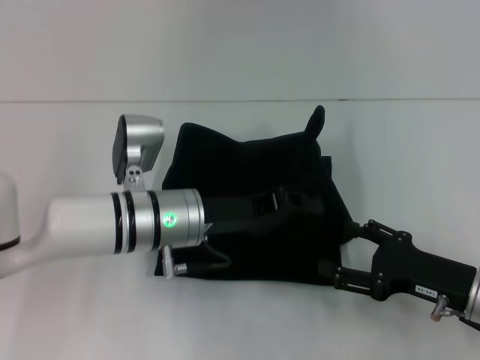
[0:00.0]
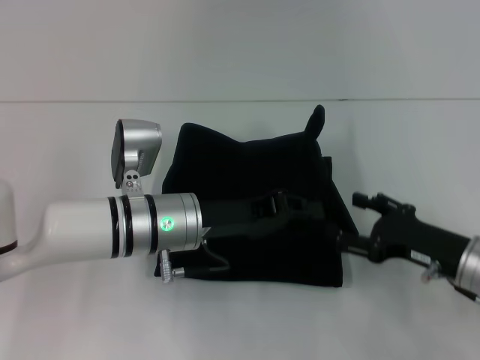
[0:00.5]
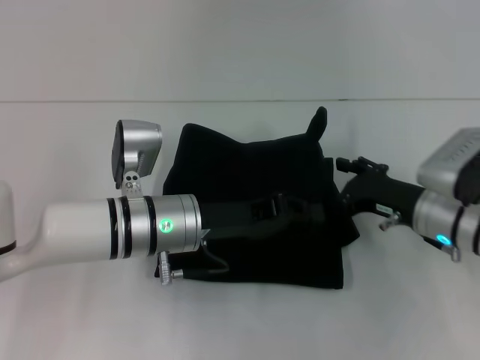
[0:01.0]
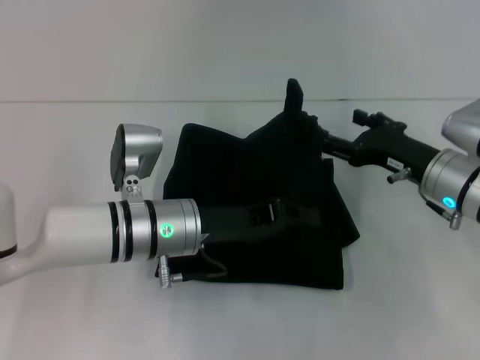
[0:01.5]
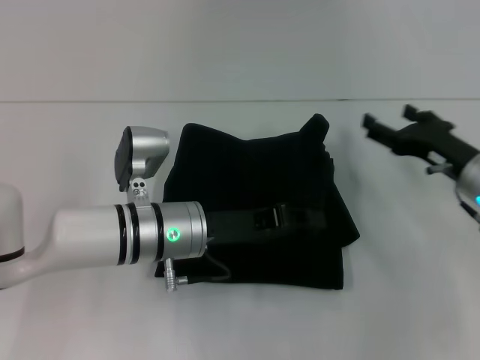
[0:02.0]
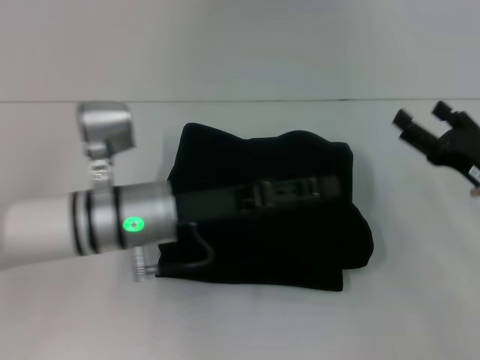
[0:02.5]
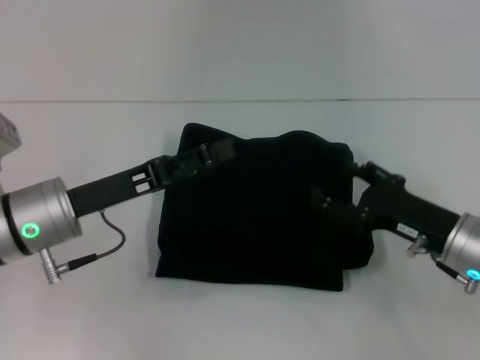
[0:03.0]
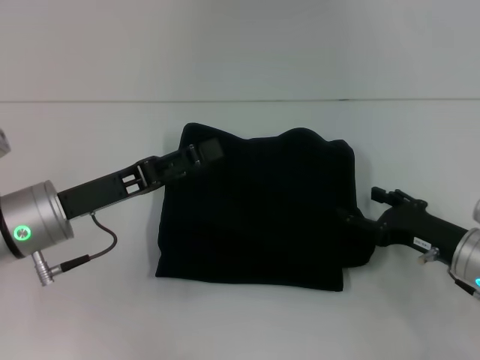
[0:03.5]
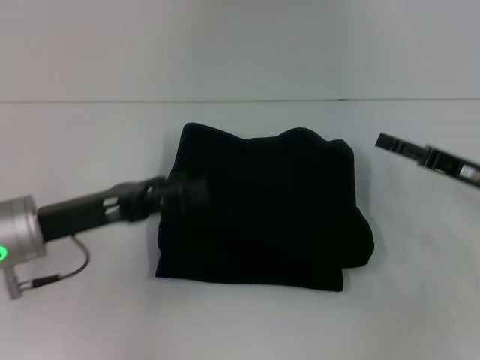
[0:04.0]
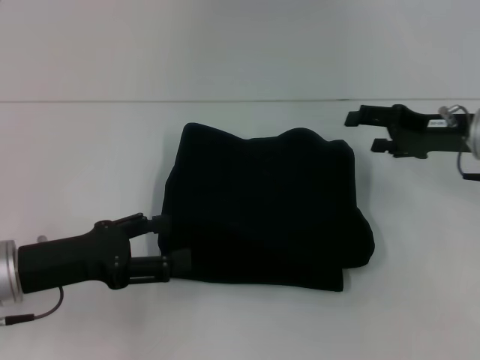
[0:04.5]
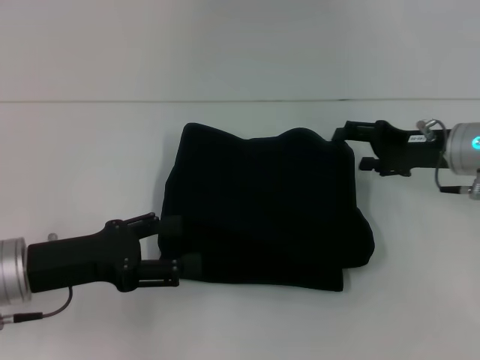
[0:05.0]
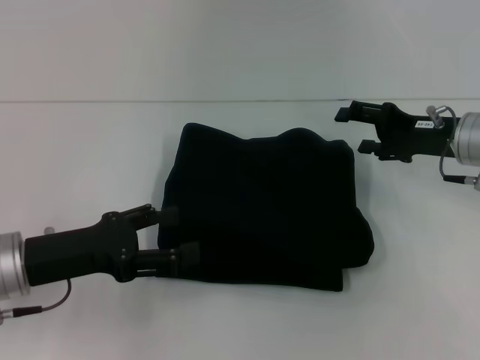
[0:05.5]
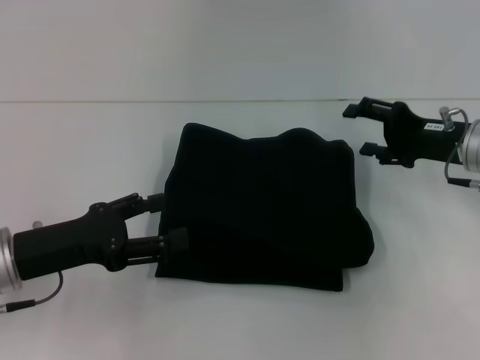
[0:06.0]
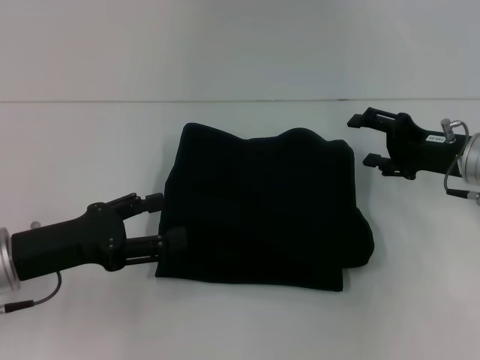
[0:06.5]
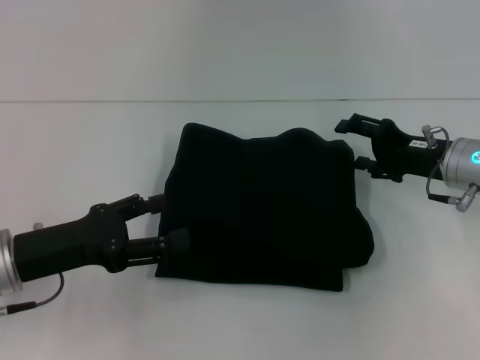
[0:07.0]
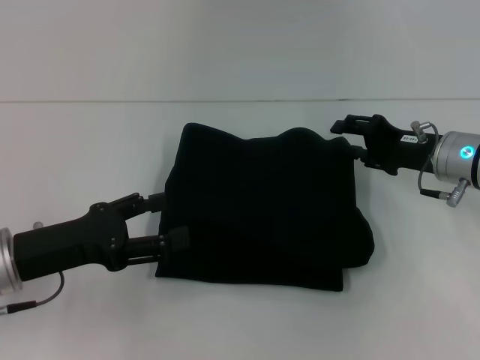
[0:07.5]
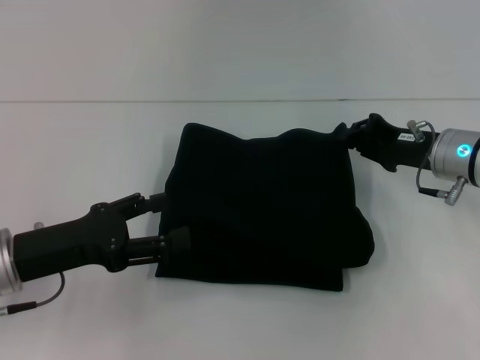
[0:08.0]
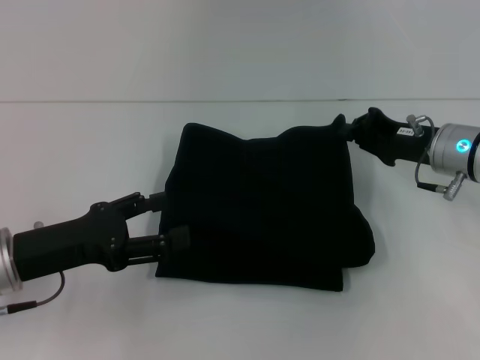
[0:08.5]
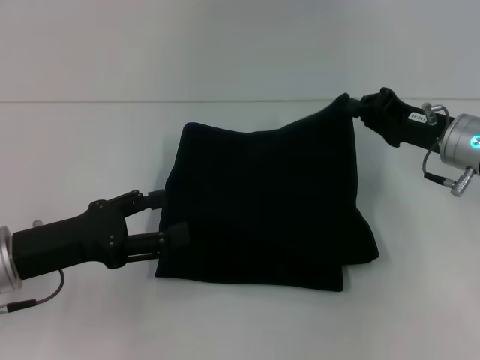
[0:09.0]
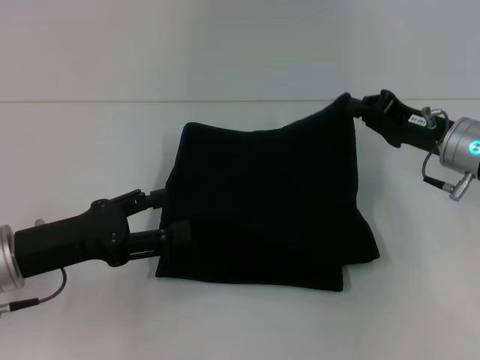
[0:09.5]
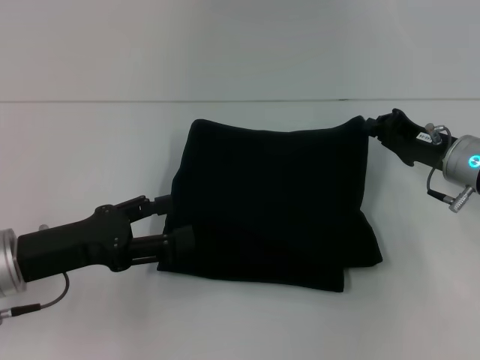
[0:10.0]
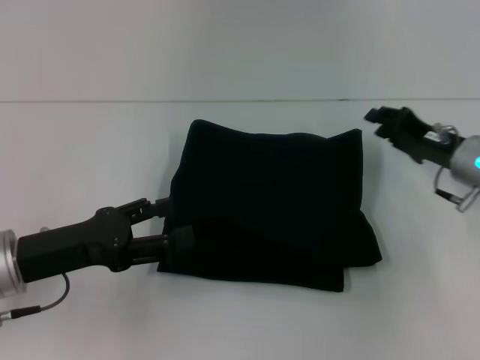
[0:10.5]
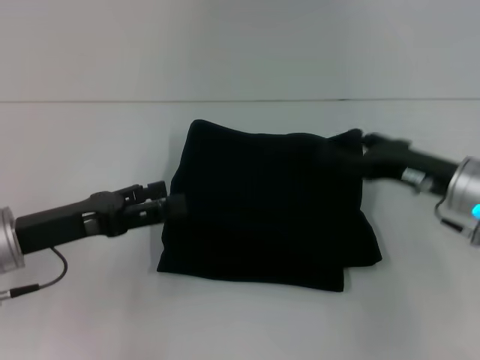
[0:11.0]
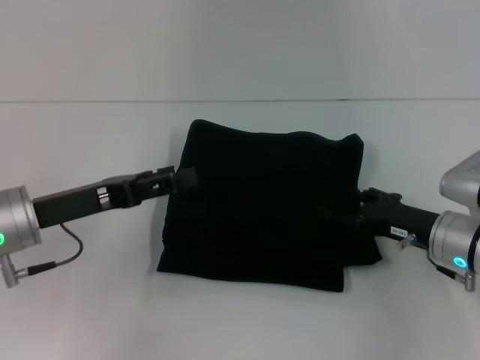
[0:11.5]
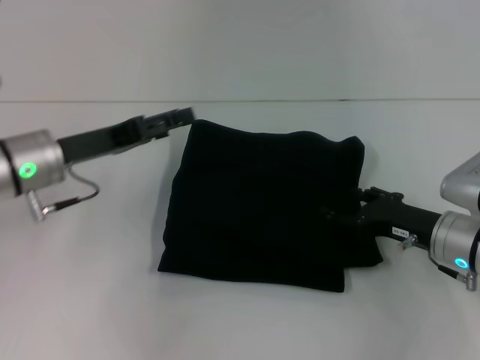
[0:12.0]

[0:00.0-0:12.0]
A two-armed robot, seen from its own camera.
Step, 0:00.0 to 0:02.5: Fold the clothes with your left hand.
0:00.0 to 0:02.0: The right gripper heads forward, covering approximately 10 cm.
0:02.0 to 0:04.0: The left gripper moves to the left, some 15 cm, and opens its fingers.
0:04.0 to 0:06.0: The right gripper shifts by roughly 5 cm.
0:06.0 to 0:08.0: The right gripper closes up.
0:08.0 to 0:10.0: The right gripper closes.
0:10.0 to 0:12.0: The left gripper is displaced forward by about 10 cm. Meanwhile the right gripper shifts approximately 5 cm backward, and opens.

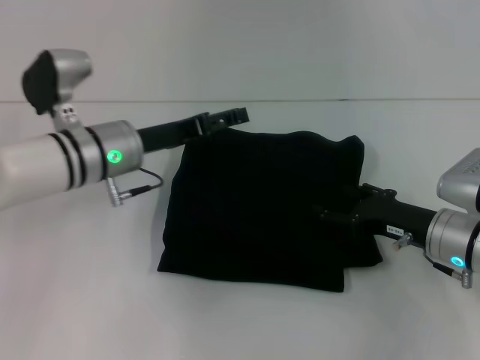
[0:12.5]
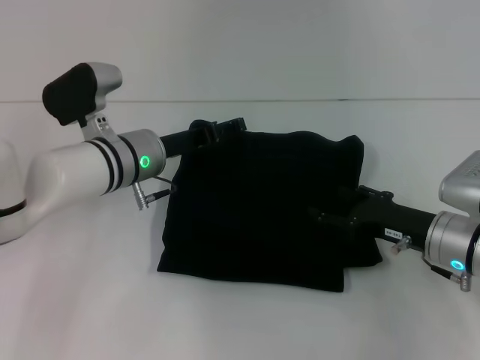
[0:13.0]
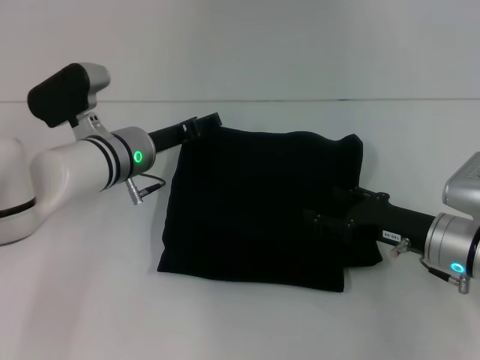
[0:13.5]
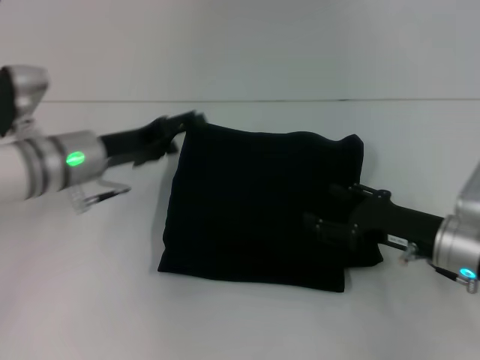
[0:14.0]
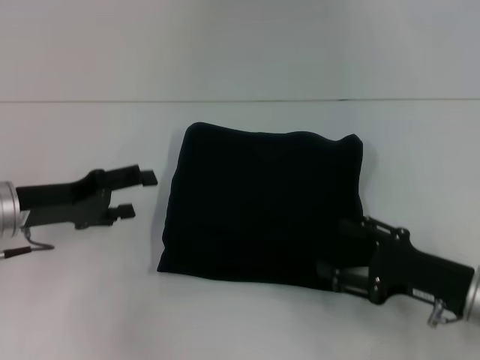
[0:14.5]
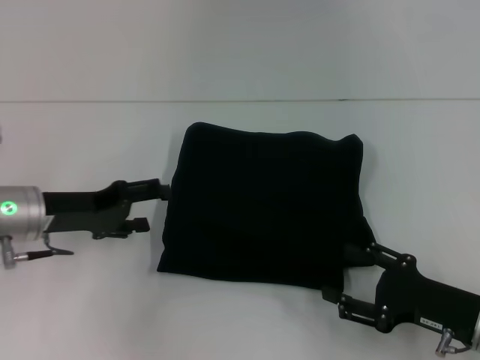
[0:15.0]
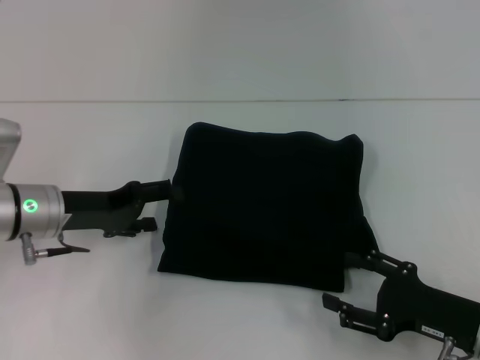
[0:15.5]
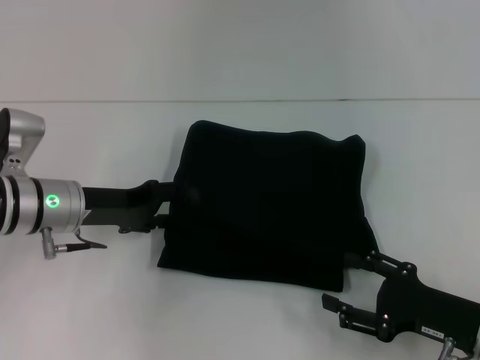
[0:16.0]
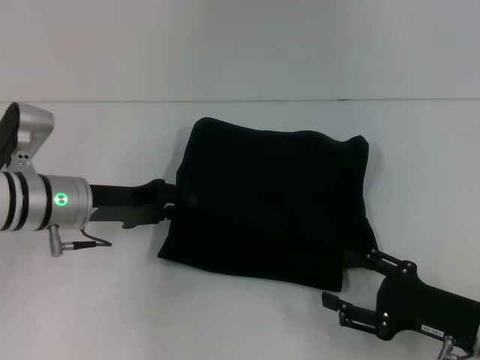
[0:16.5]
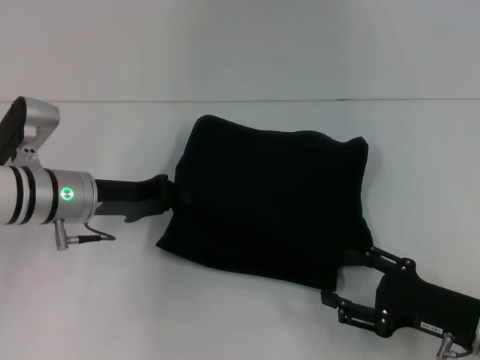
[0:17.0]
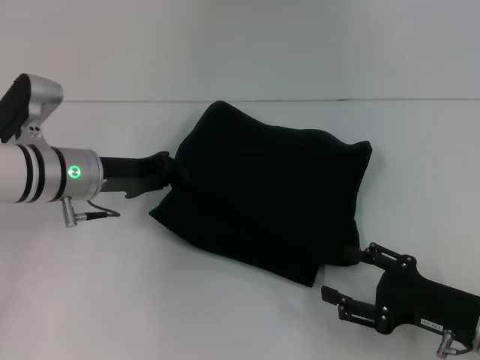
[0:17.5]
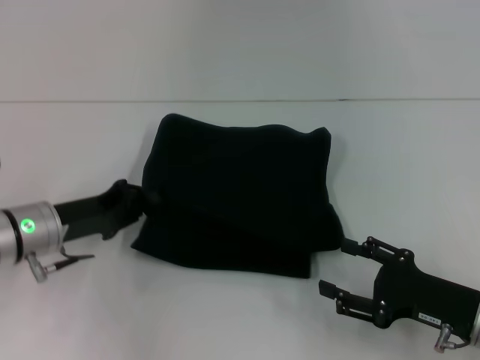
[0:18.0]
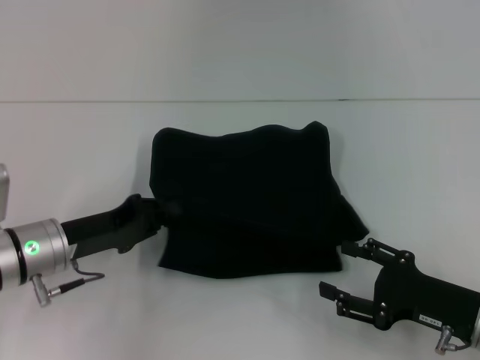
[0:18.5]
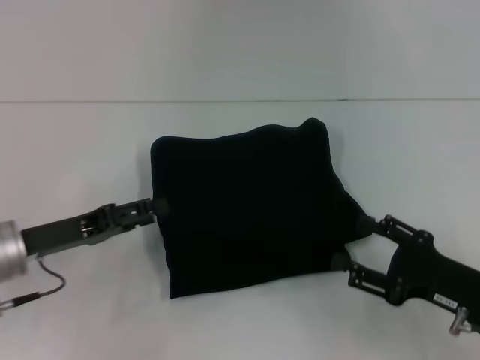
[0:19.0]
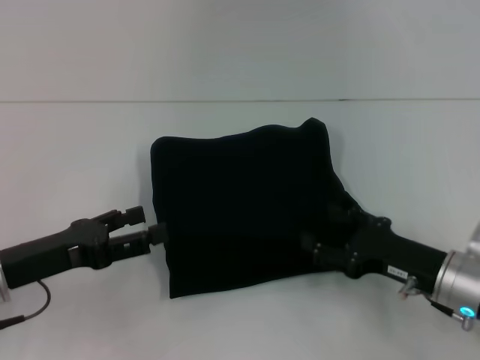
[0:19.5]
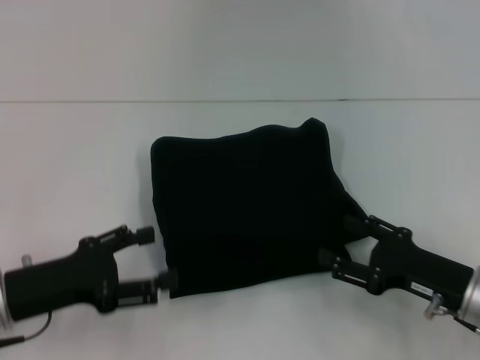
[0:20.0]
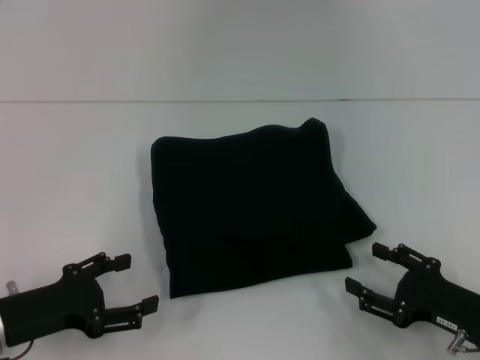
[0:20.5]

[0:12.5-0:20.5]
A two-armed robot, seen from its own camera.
0:12.5 to 0:14.5: The left gripper travels to the left and backward by some 15 cm, while the right gripper goes some 5 cm backward.
0:14.5 to 0:16.5: The left gripper goes roughly 5 cm to the right.
0:16.5 to 0:18.5: The left gripper heads backward, covering roughly 5 cm, and closes up.
0:18.5 to 0:20.5: The left gripper is displaced backward by some 10 cm, and opens.
